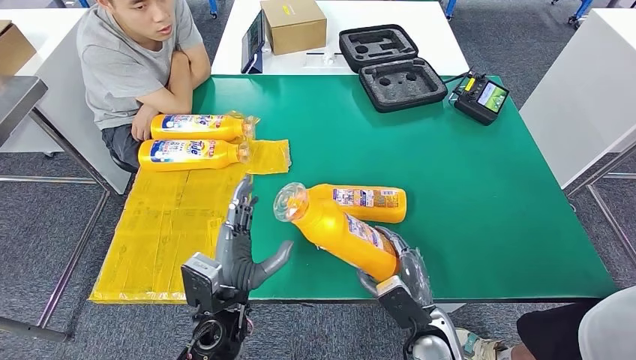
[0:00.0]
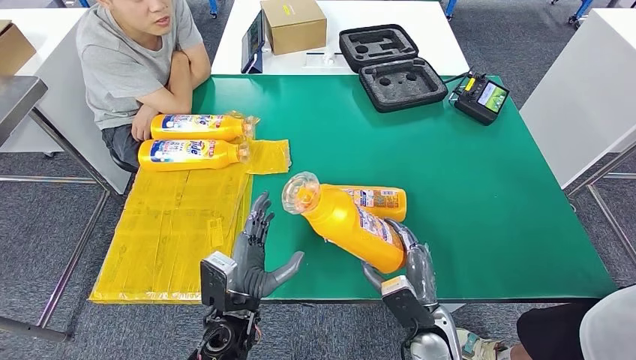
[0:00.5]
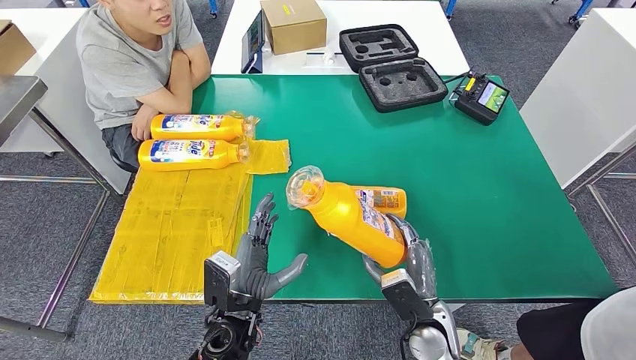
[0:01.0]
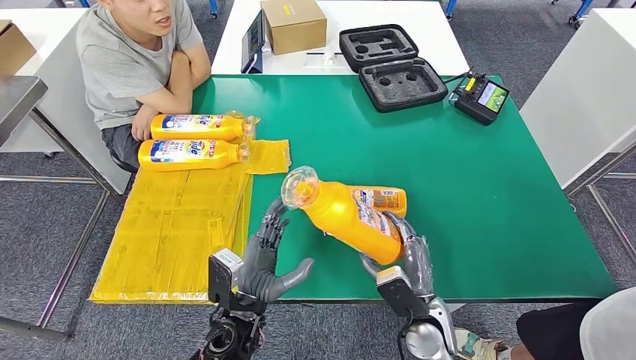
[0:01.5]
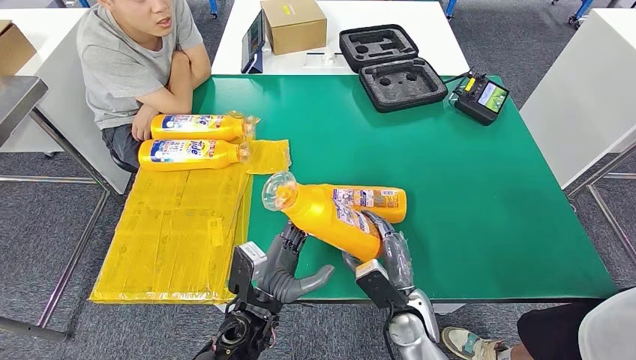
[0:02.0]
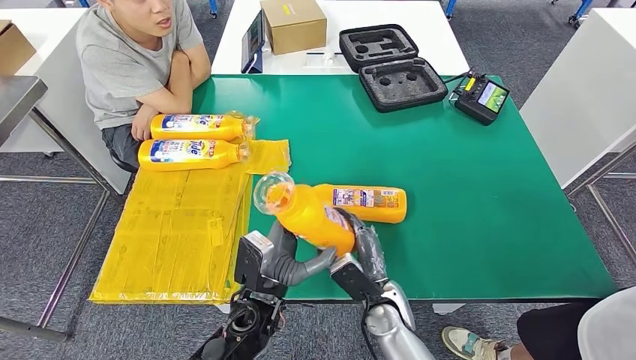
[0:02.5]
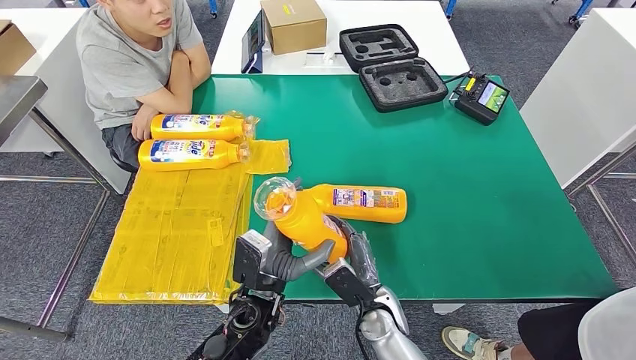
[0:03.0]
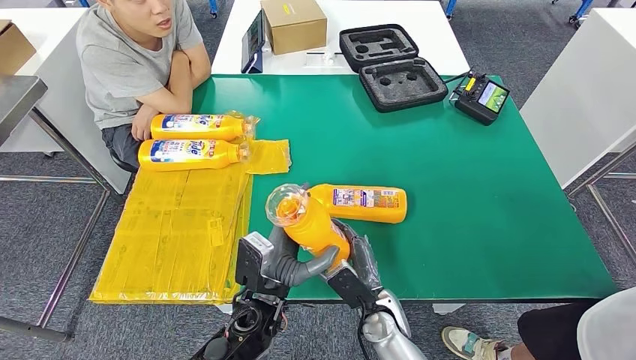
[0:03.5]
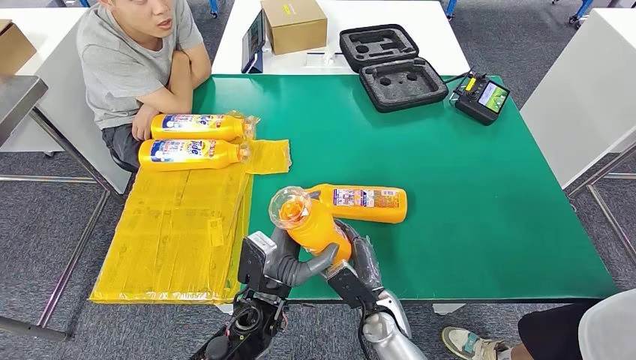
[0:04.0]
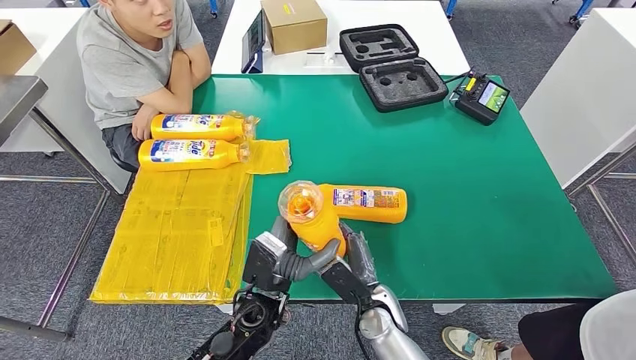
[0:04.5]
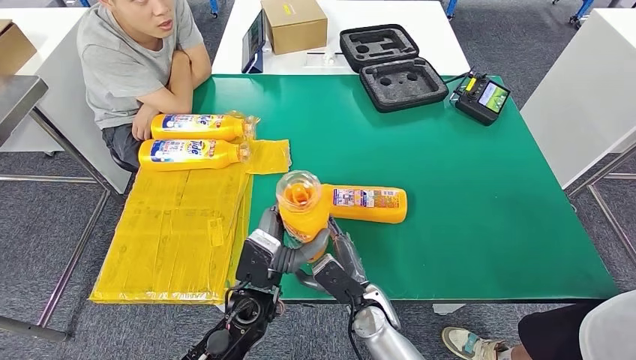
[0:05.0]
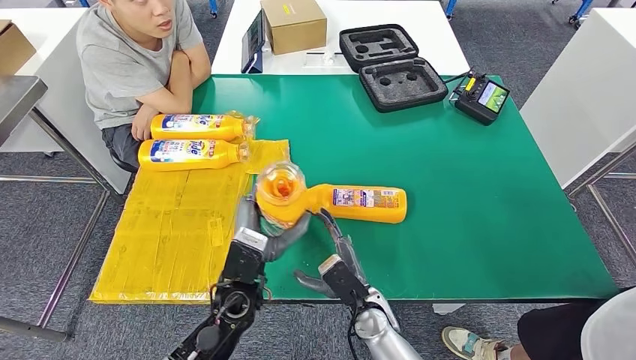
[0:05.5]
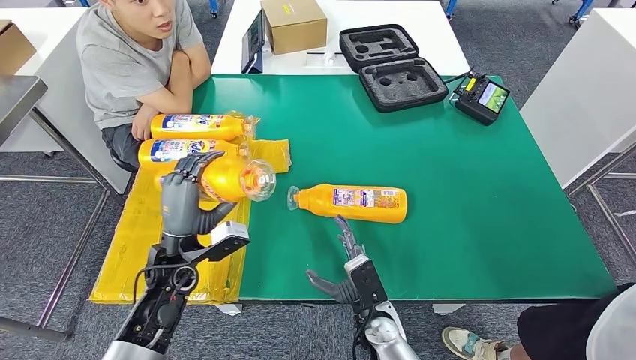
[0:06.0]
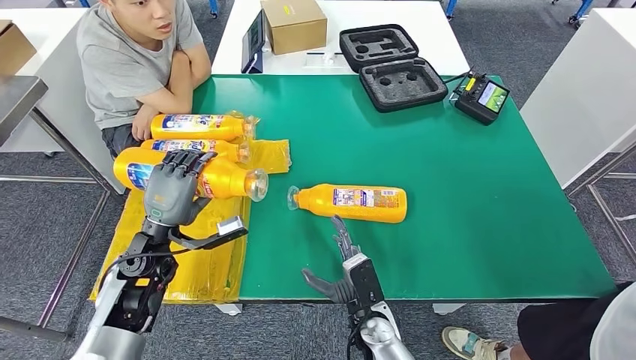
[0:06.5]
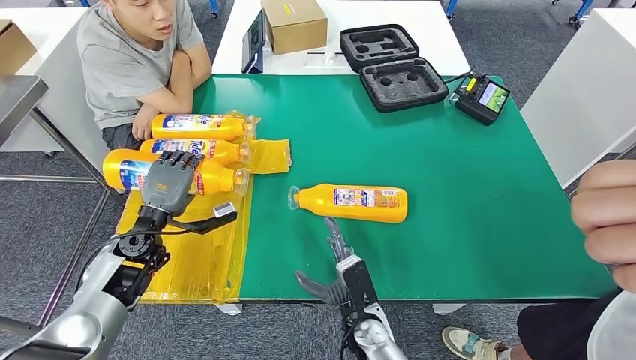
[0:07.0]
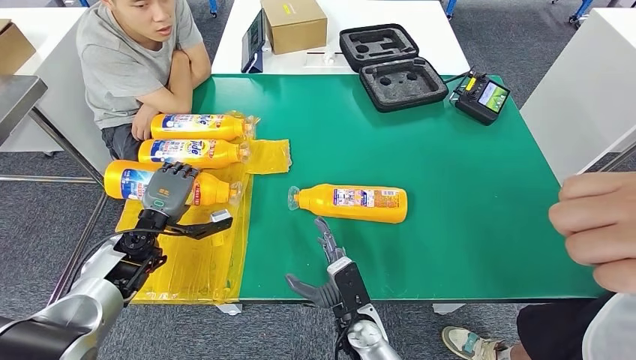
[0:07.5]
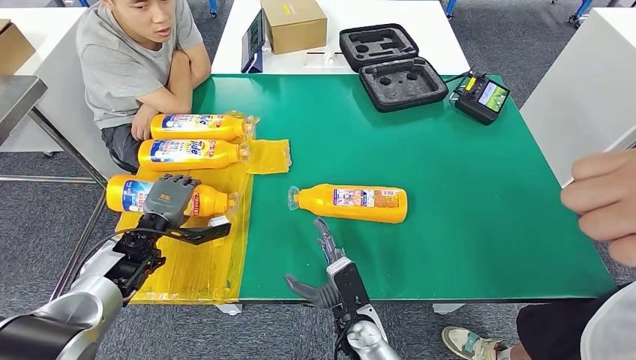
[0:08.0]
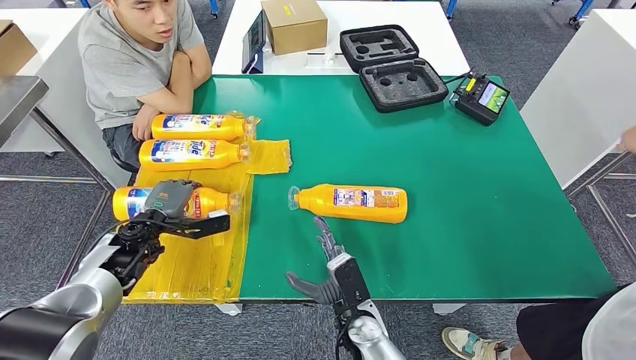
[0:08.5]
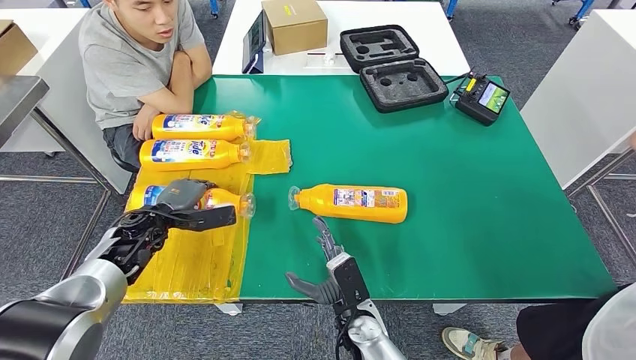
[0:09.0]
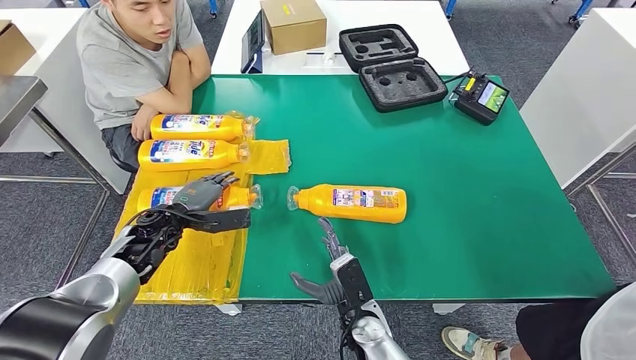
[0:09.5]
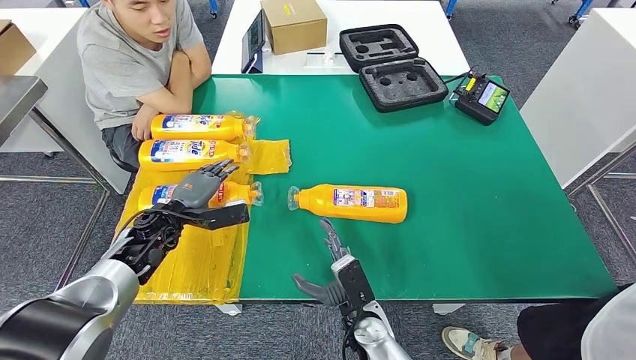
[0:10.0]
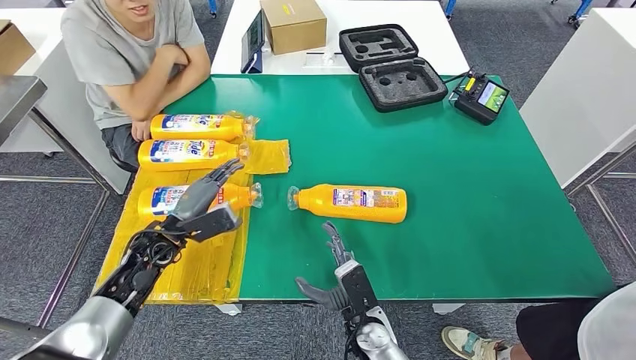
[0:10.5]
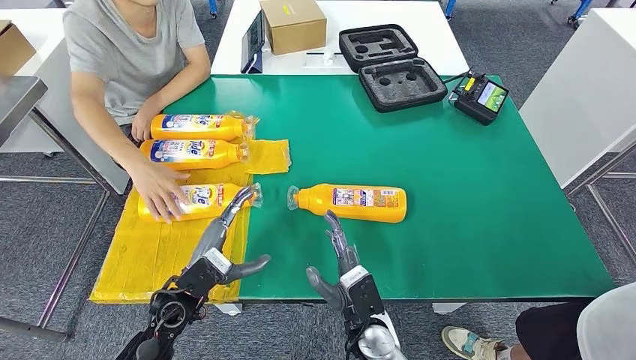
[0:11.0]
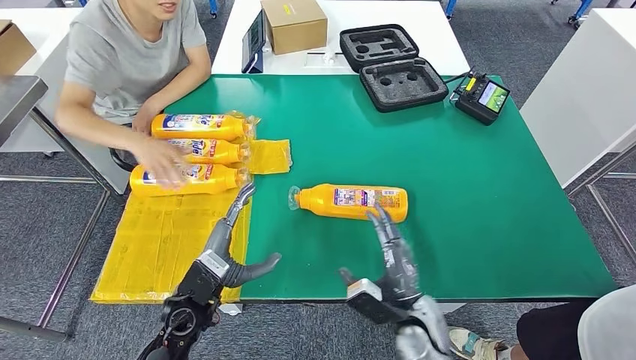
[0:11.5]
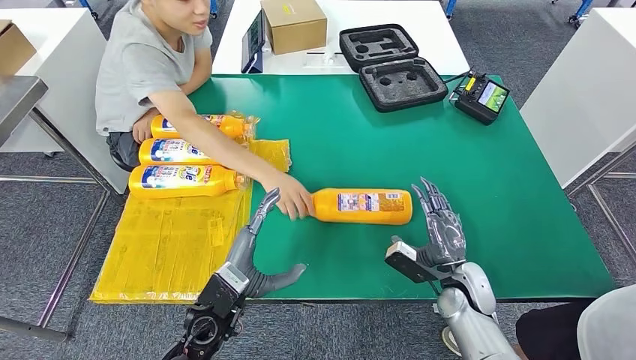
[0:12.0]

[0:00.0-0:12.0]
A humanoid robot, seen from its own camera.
Step, 0:00.0 to 0:02.0: Pick up the fast-moving consumer goods bottle from the table.
Step, 0:03.0 to 0:08.0: Flip the fast-moving consumer goods bottle to the front side.
0:00.0 to 0:02.0: The right hand ends up approximately 5 cm from where it was.
0:02.0 to 0:04.0: The right hand is displaced to the left by about 5 cm.
0:04.0 to 0:06.0: The left hand goes roughly 15 cm to the left.
0:06.0 to 0:08.0: The left hand heads to the left and forward, covering roughly 10 cm.
0:08.0 to 0:10.0: The left hand moves approximately 5 cm.

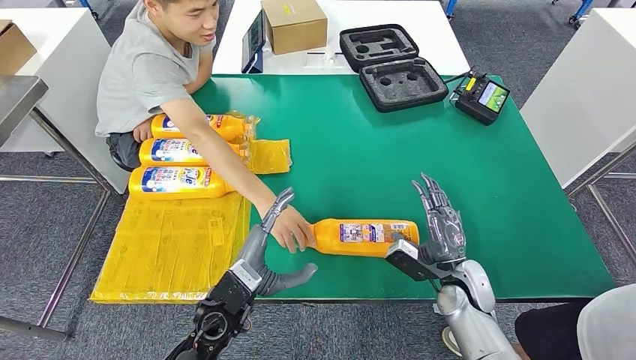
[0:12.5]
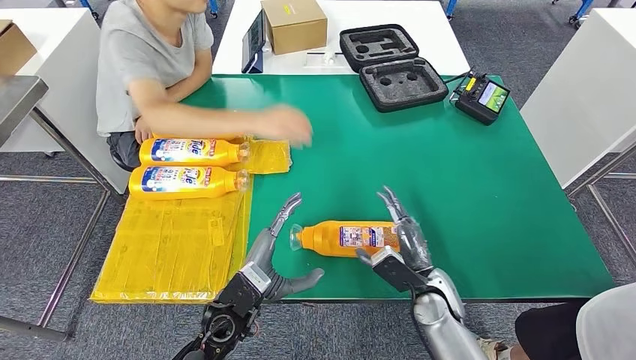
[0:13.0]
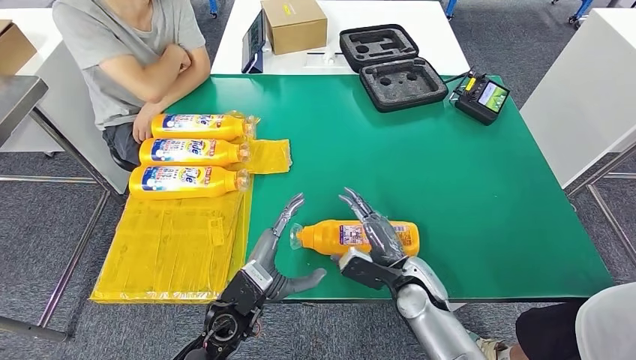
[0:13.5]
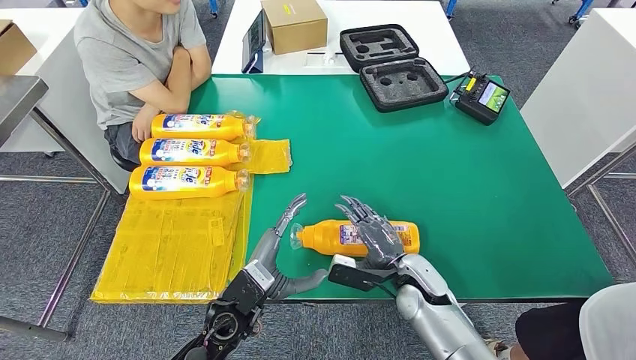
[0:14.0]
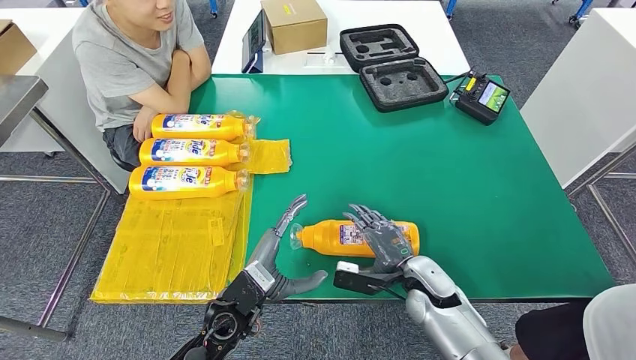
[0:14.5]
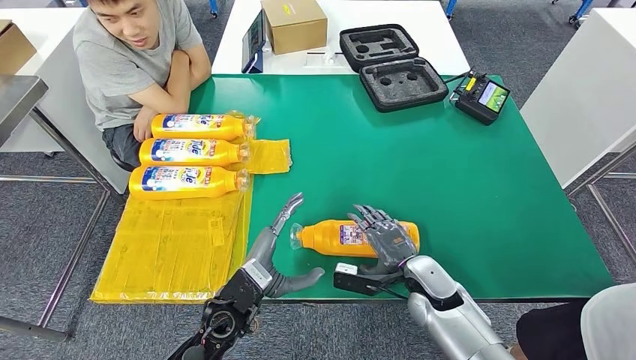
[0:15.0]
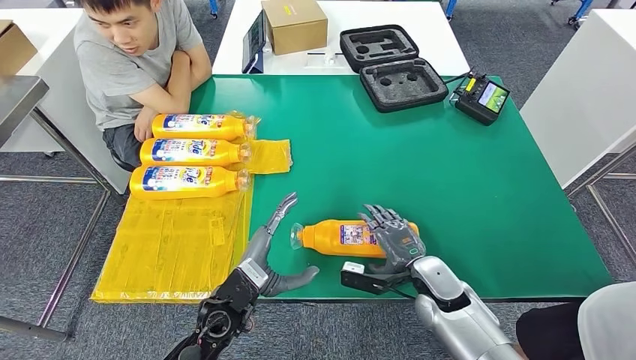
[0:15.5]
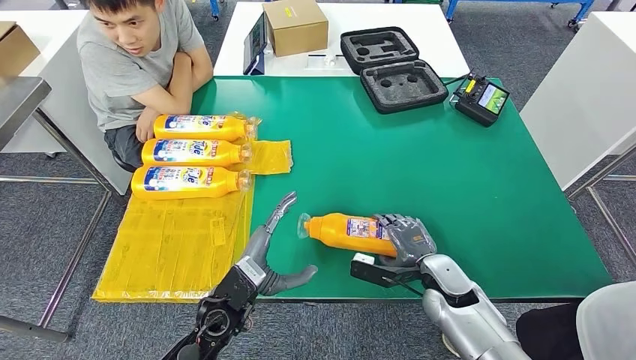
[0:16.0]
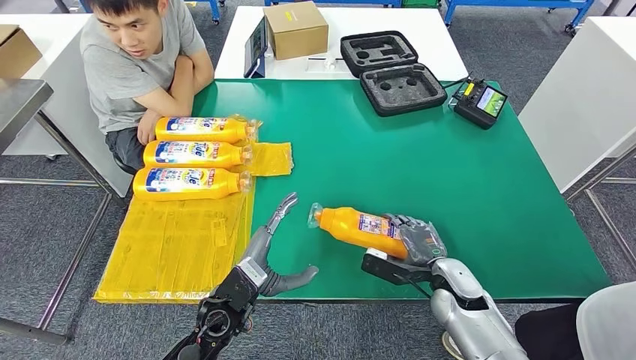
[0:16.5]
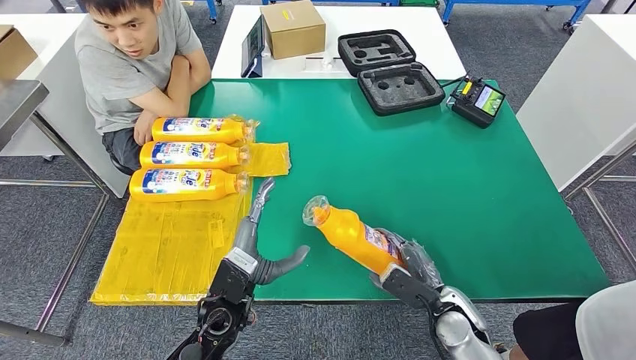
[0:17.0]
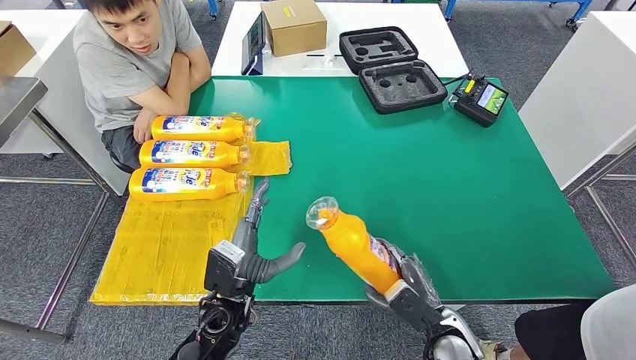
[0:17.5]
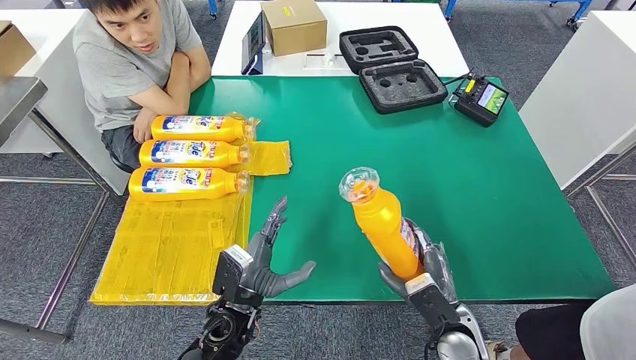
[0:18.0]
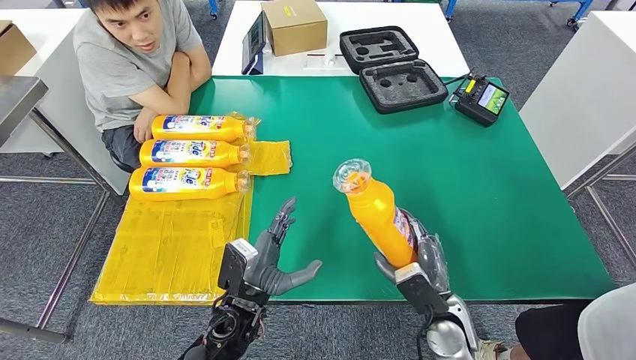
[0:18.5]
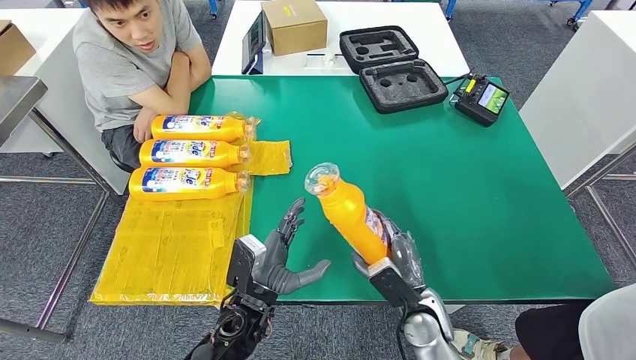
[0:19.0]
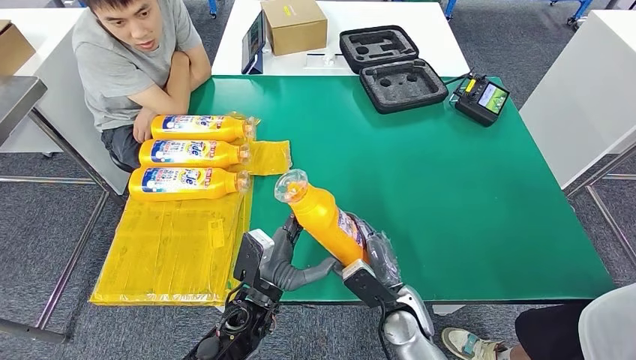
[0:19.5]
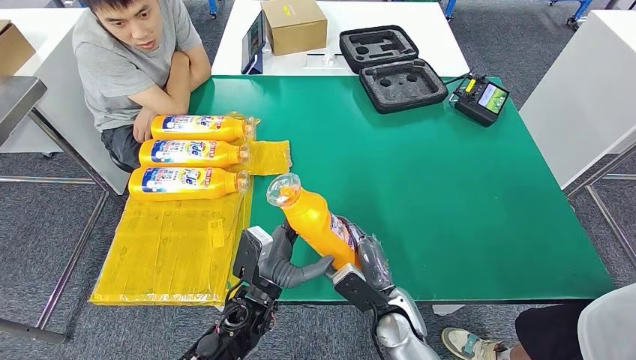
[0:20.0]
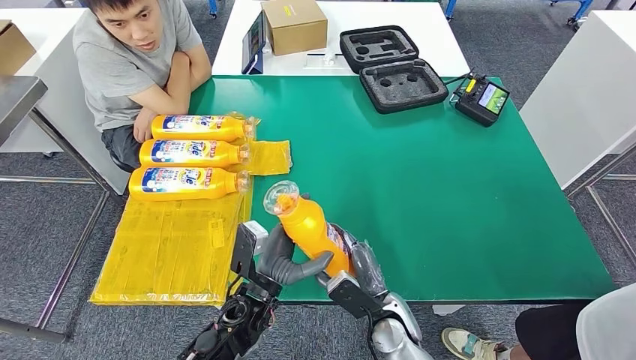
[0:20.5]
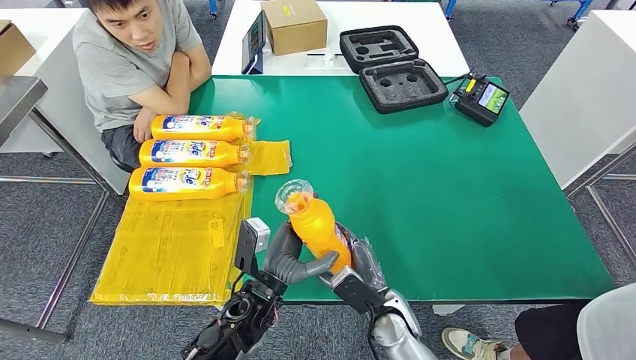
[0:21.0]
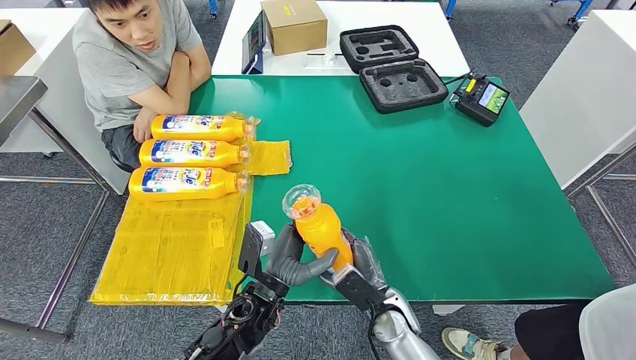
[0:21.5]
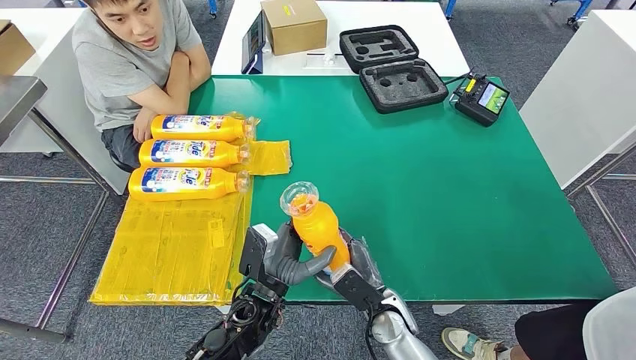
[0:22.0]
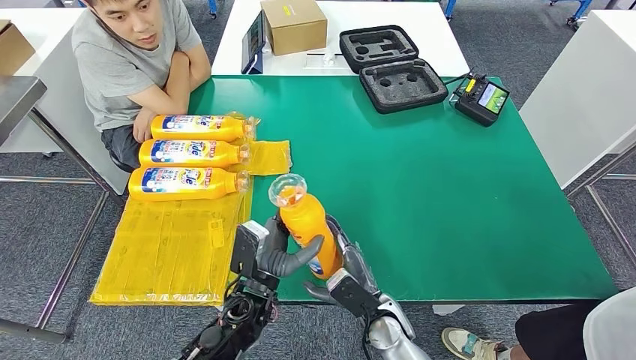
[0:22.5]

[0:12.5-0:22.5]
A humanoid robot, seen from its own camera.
Step, 0:12.5 to 0:18.0: Pick up the fast-moving consumer goods bottle from the table.
0:12.5 to 0:14.5: The right hand travels to the left by approximately 10 cm.
0:18.5 to 0:20.5: The right hand goes about 10 cm to the left.
0:20.5 to 0:22.5: The hands move only a little.
